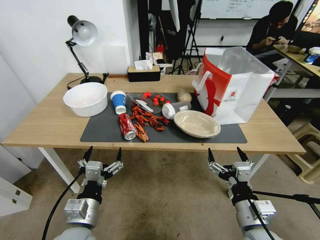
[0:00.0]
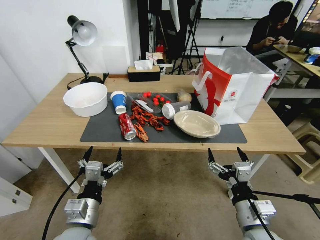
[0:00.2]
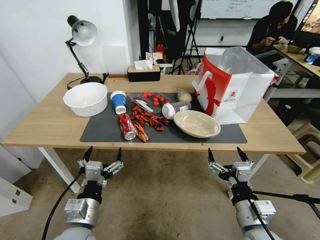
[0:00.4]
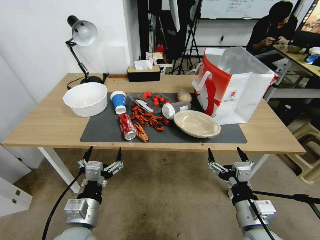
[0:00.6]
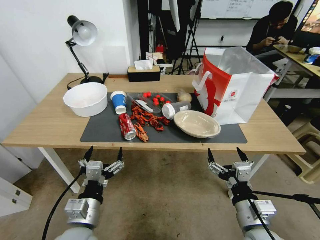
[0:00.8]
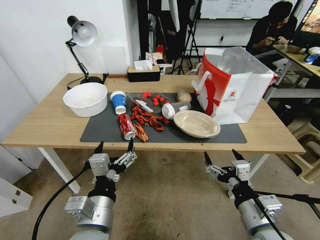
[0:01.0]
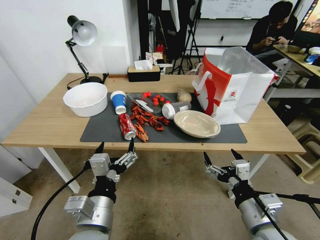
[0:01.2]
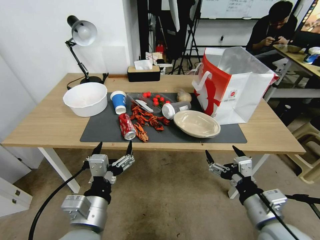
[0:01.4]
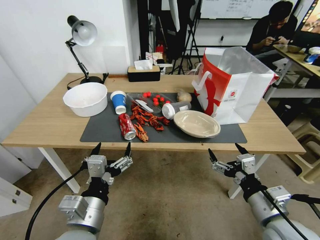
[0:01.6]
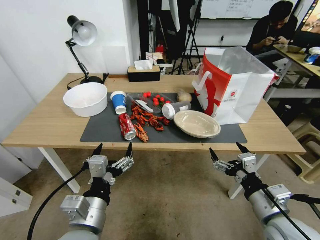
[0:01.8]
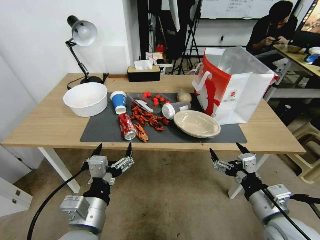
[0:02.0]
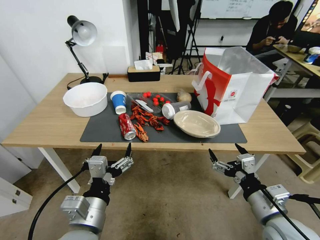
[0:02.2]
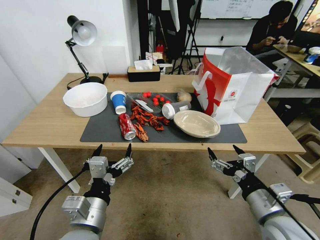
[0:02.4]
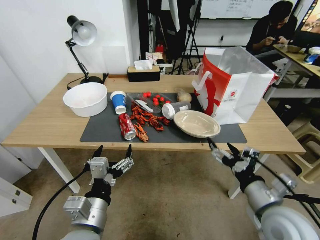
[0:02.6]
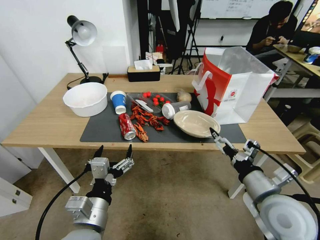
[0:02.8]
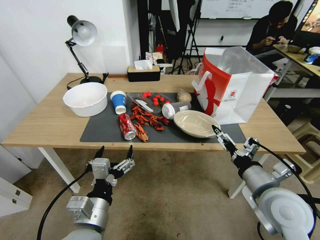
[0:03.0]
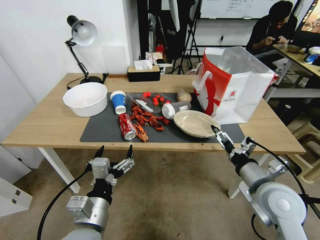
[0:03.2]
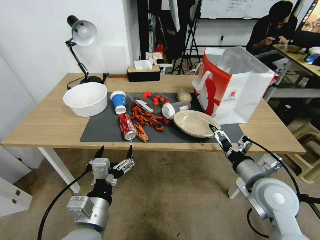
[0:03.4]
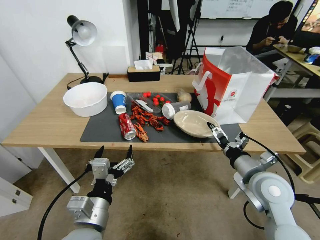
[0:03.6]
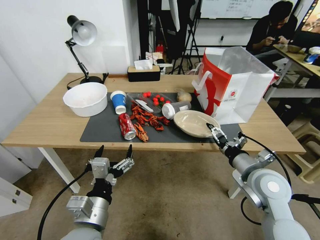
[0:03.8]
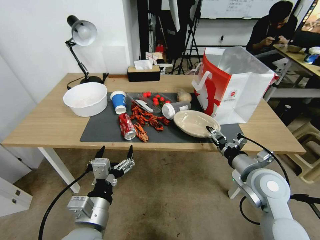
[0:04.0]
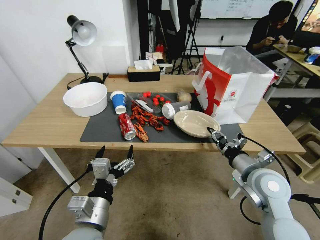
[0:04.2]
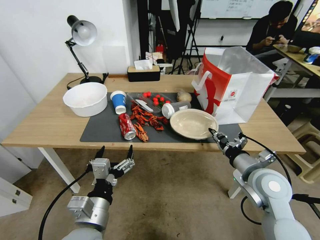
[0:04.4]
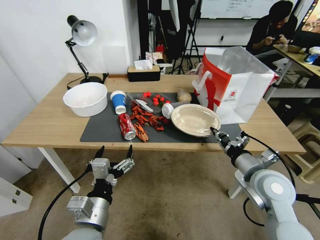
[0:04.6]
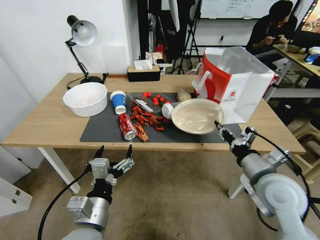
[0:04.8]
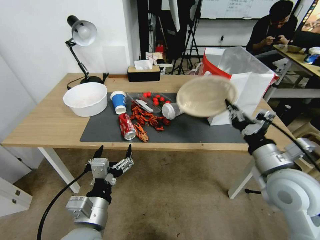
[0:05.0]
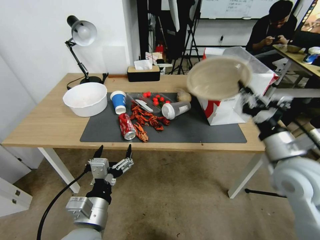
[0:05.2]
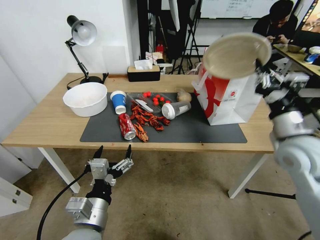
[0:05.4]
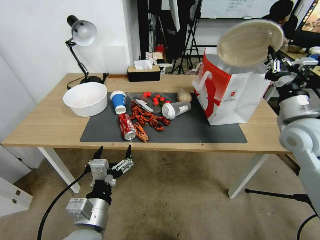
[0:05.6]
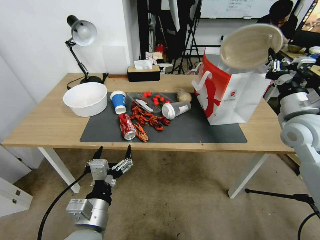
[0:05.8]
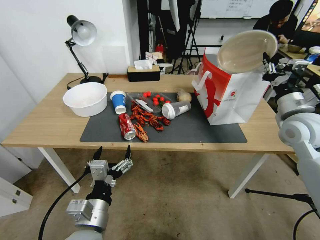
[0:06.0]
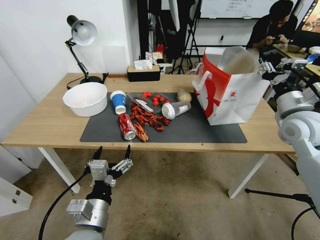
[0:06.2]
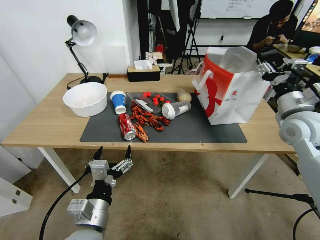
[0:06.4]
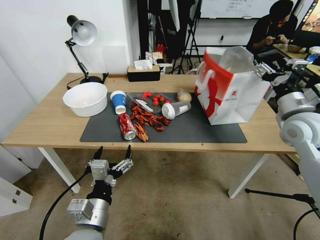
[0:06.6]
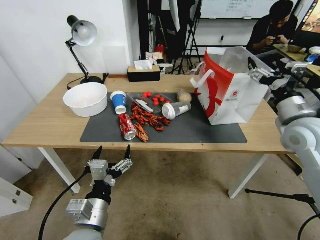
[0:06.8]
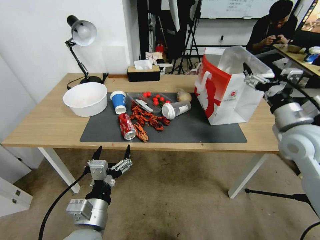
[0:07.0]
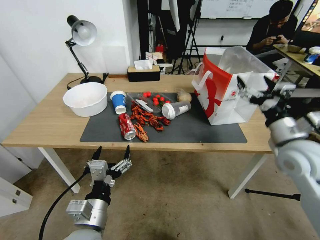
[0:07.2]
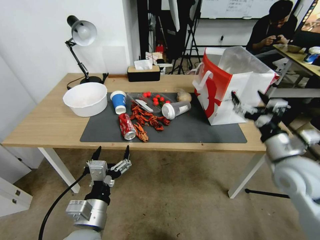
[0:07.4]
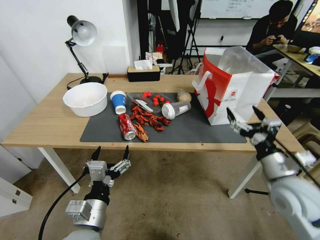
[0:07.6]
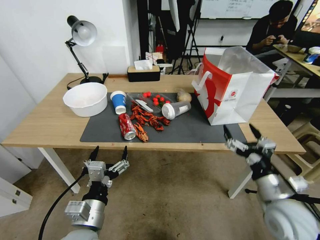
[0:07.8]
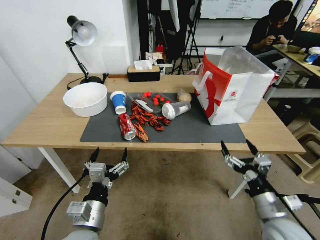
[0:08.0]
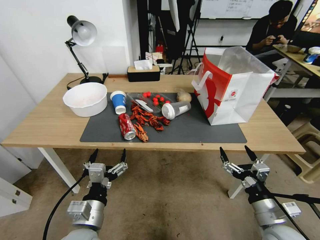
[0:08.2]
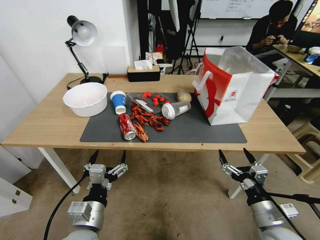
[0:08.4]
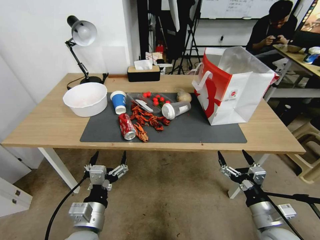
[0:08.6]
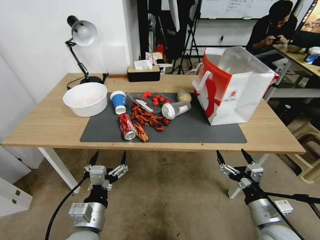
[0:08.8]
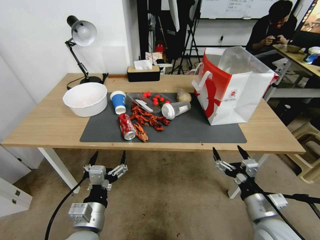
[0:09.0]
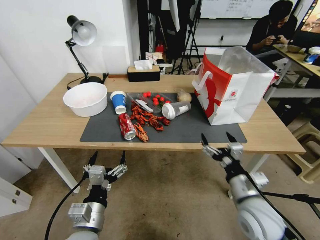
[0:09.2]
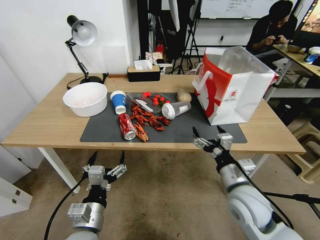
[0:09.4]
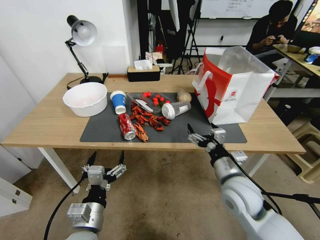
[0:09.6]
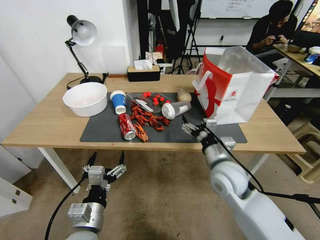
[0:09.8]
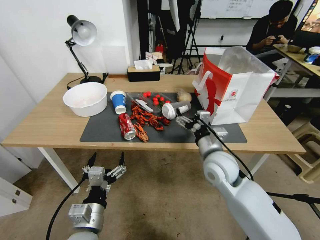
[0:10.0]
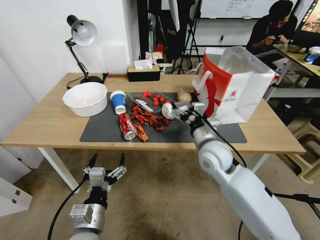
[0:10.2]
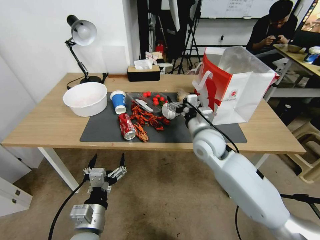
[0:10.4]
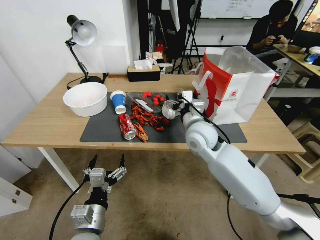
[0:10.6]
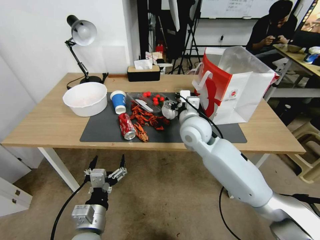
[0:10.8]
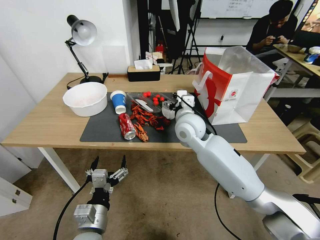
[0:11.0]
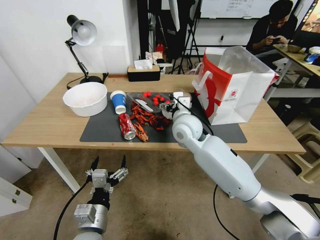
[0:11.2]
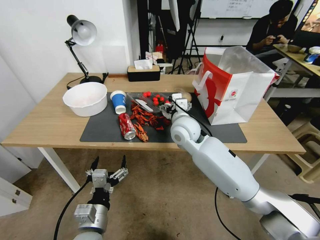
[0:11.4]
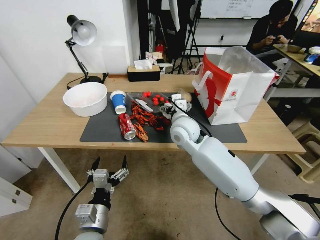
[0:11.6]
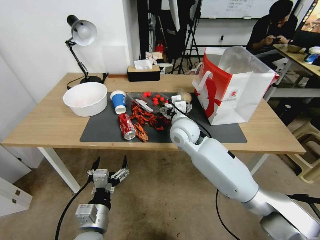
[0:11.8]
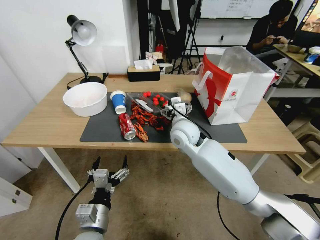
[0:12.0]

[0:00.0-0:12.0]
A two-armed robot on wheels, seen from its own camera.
0:01.6 to 0:03.0: The right gripper is displaced forward by approximately 5 cm.
0:03.0 to 0:04.4: The right gripper shifts approximately 5 cm forward, and closes up.
0:04.4 to 0:06.0: The right gripper shifts about 20 cm upward, forward and to the right.
0:06.0 to 0:07.6: The right gripper moves backward and downward, about 15 cm, and opens up.
0:07.6 to 0:09.0: The right gripper moves downward and backward, roughly 10 cm.
0:09.0 to 0:10.4: The right gripper goes some 25 cm forward, to the left and upward.
0:10.4 to 0:12.0: The right gripper heads to the left, covering some 5 cm.

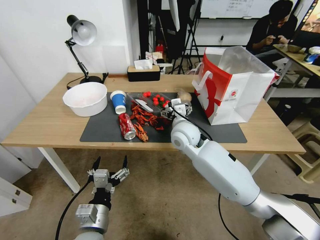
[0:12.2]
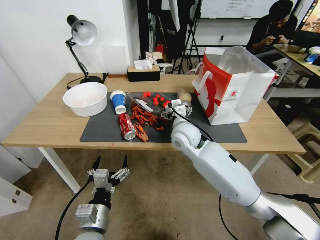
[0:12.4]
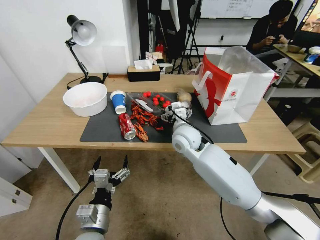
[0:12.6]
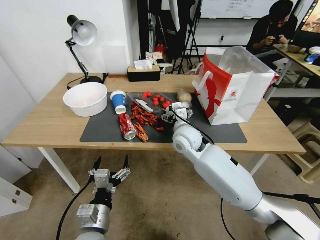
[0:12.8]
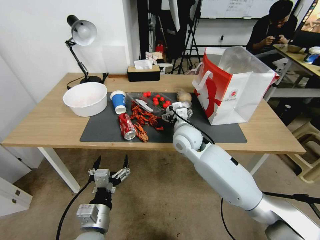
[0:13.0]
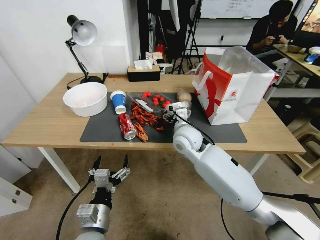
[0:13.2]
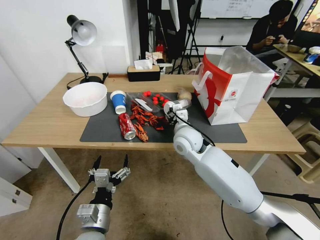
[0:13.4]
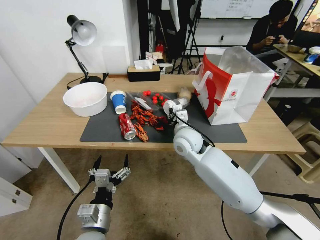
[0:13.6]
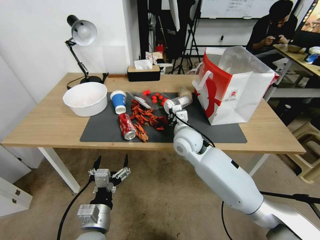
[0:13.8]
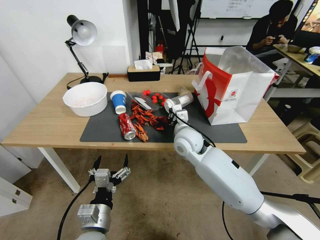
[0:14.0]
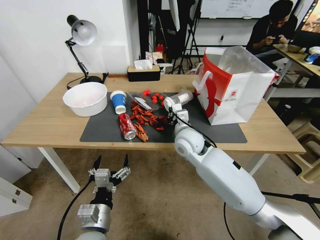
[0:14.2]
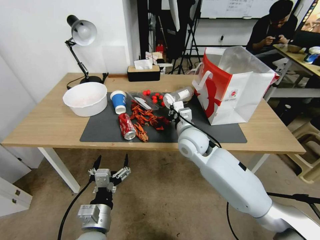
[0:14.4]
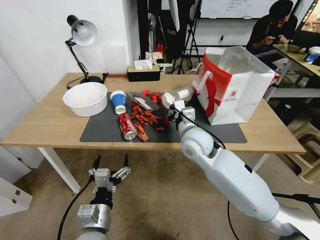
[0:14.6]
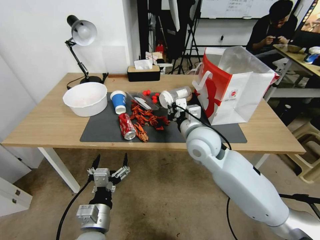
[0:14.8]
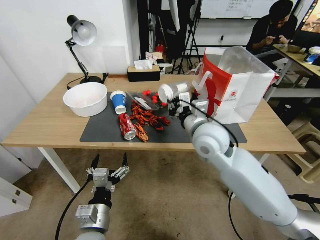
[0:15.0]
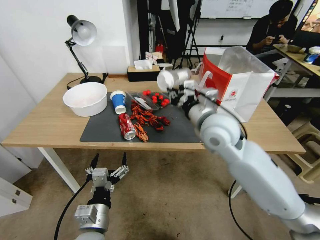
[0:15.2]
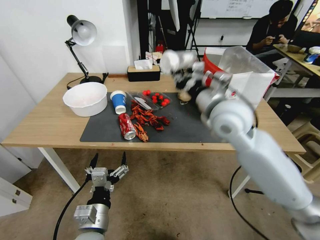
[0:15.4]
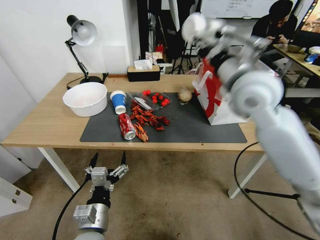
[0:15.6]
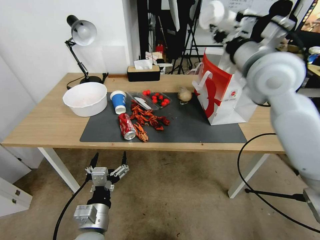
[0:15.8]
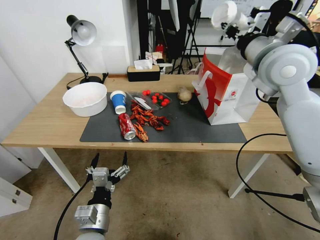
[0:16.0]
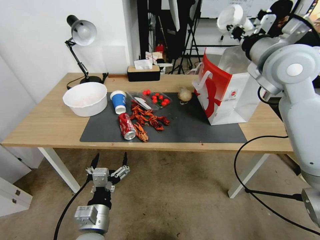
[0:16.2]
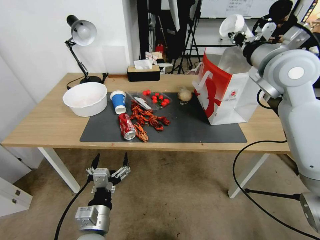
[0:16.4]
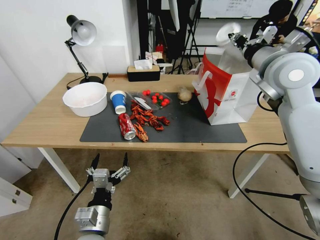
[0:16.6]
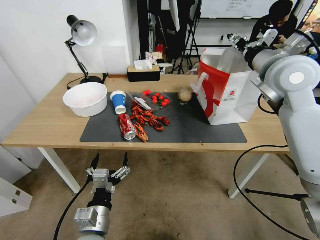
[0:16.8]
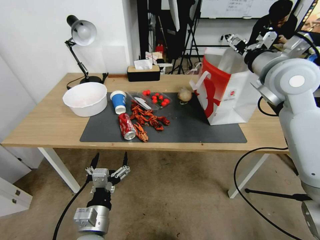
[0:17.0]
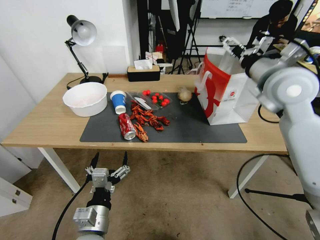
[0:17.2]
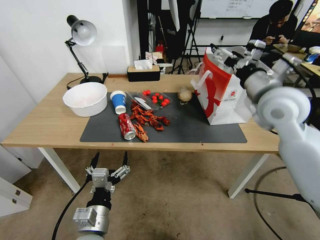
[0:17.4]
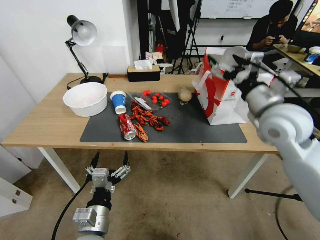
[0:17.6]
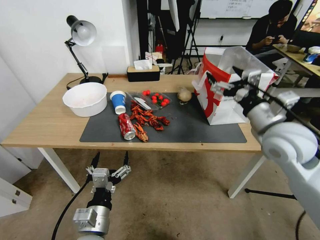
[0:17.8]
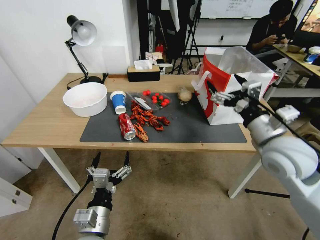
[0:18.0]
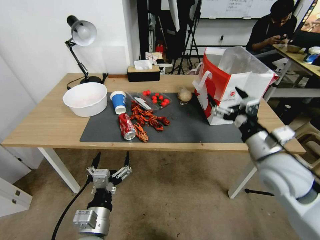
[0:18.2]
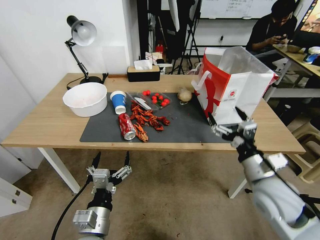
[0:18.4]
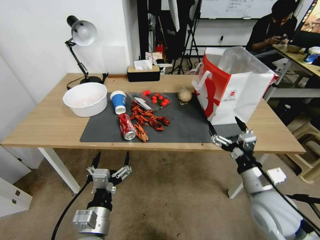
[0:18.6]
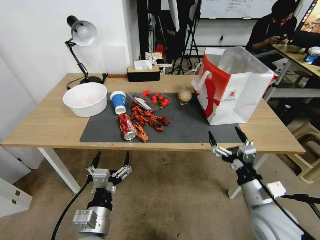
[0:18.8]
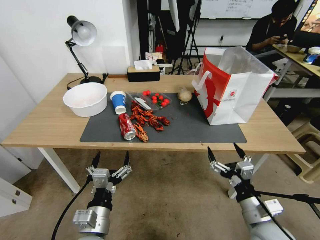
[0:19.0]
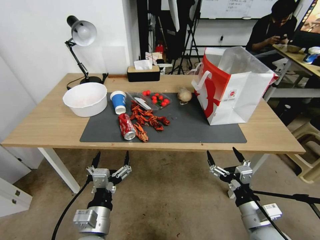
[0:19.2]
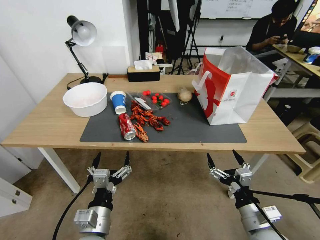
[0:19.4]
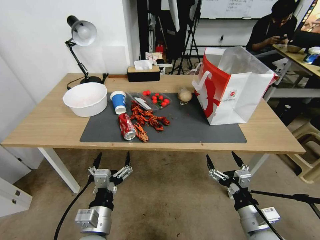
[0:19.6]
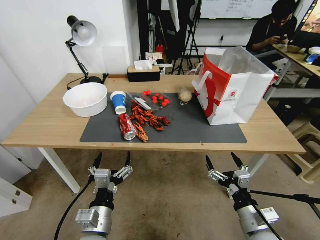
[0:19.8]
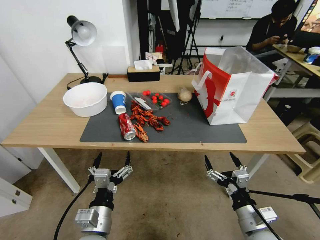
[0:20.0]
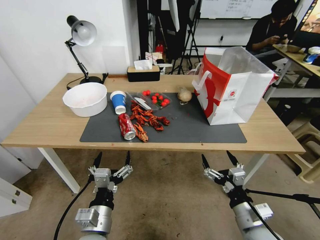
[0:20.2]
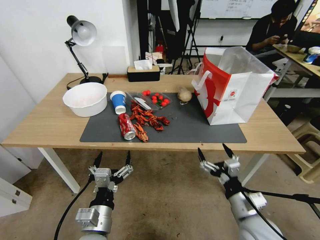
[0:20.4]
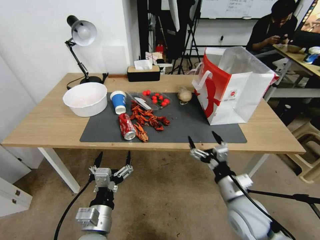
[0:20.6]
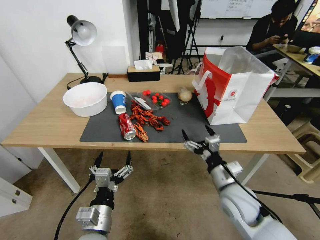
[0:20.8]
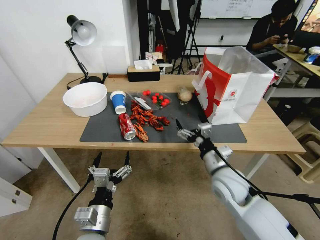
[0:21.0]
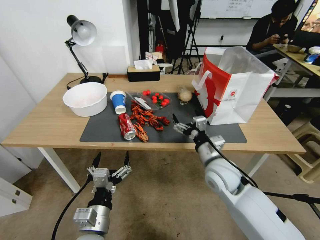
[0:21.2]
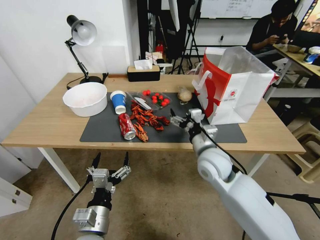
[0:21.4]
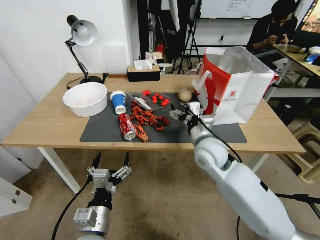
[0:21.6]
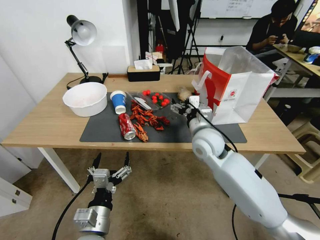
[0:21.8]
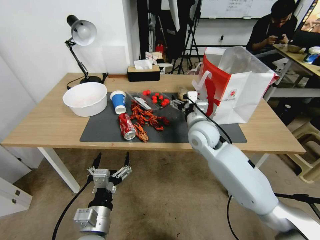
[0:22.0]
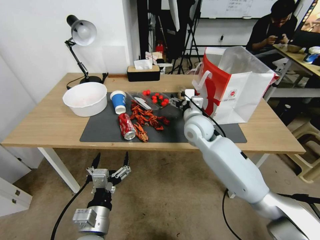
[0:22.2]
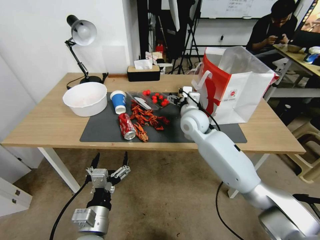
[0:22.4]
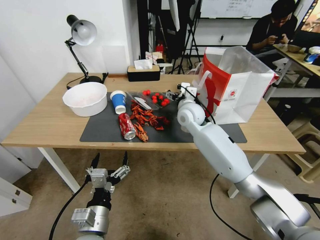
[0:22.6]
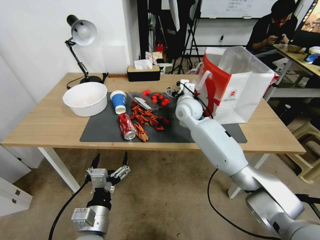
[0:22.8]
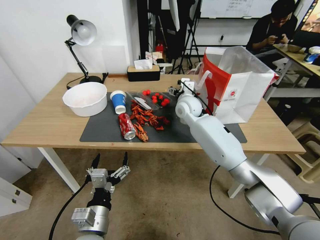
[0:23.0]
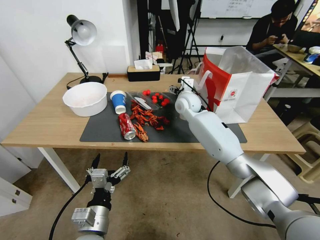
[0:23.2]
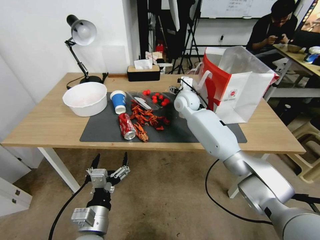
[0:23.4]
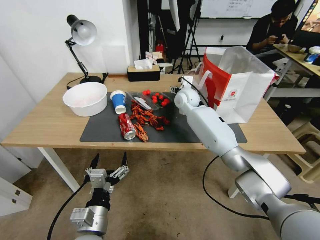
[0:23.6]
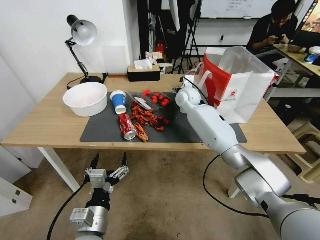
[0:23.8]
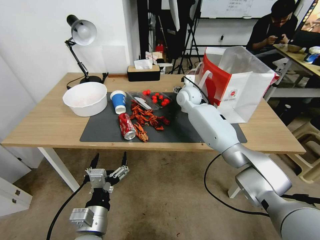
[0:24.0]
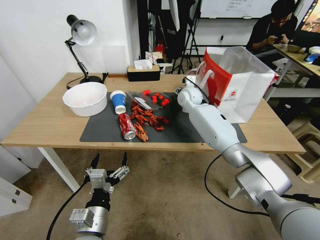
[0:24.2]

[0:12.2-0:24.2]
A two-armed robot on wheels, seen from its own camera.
0:12.2 to 0:13.8: The right gripper closes its fingers.
0:13.8 to 0:15.2: The right gripper heads upward, to the right and backward, covering some 15 cm.
0:15.2 to 0:16.6: The right gripper travels to the right, upward and forward by about 20 cm.
0:16.6 to 0:18.2: The right gripper shifts about 25 cm downward and backward, and opens its fingers.
0:18.2 to 0:19.8: The right gripper heads downward and backward, covering about 20 cm.
0:19.8 to 0:21.2: The right gripper shifts approximately 20 cm forward, to the left and upward.
0:21.2 to 0:22.6: The right gripper moves forward, about 20 cm.
0:22.6 to 0:24.2: The right gripper is displaced forward by some 10 cm.
